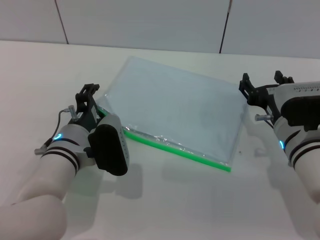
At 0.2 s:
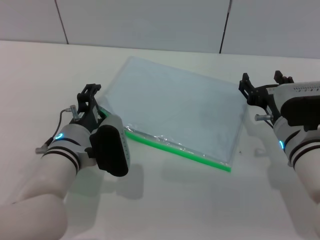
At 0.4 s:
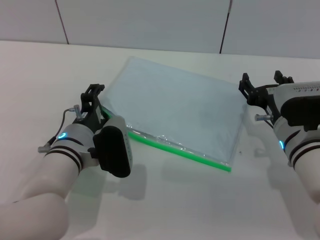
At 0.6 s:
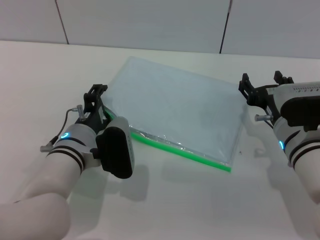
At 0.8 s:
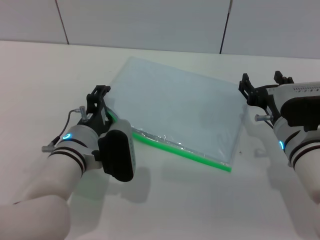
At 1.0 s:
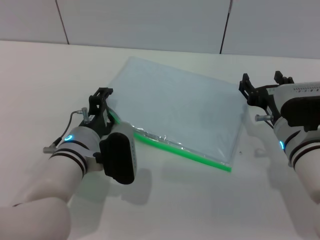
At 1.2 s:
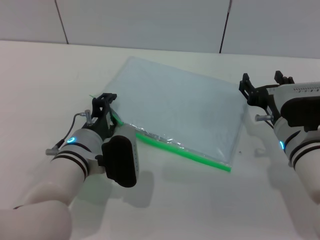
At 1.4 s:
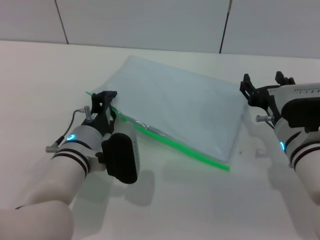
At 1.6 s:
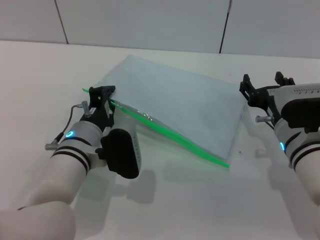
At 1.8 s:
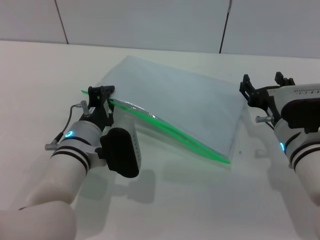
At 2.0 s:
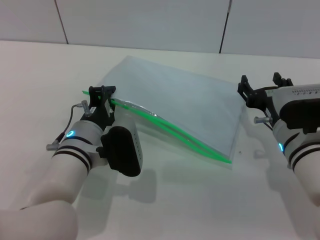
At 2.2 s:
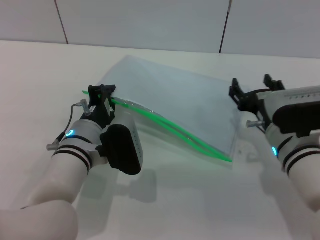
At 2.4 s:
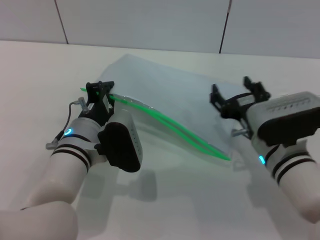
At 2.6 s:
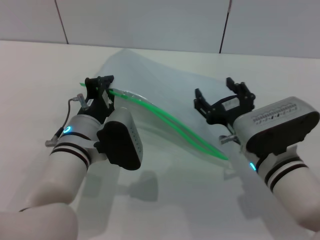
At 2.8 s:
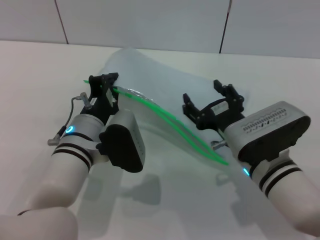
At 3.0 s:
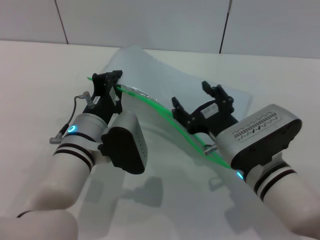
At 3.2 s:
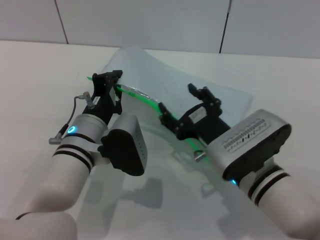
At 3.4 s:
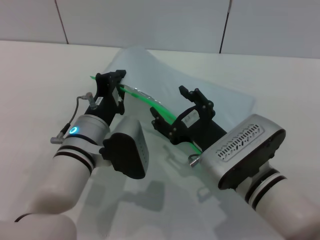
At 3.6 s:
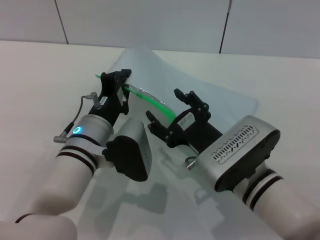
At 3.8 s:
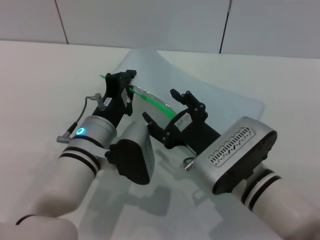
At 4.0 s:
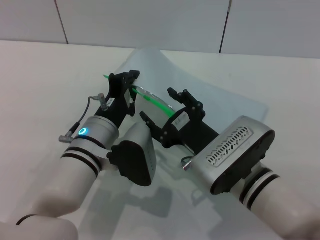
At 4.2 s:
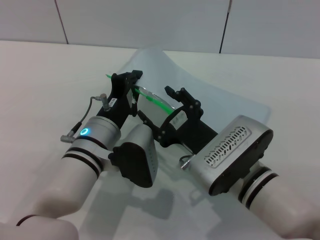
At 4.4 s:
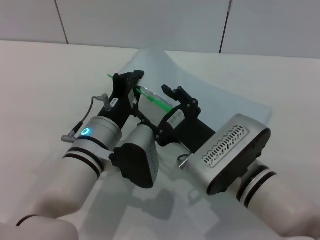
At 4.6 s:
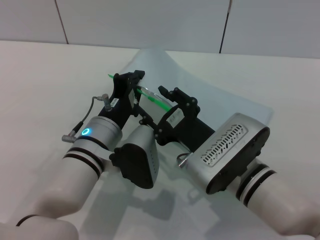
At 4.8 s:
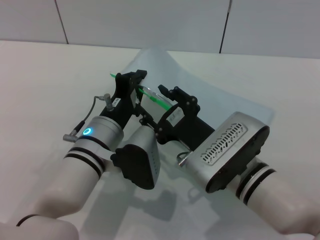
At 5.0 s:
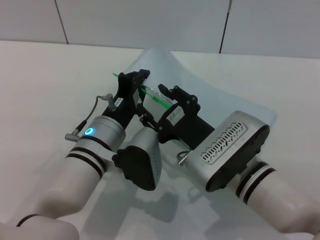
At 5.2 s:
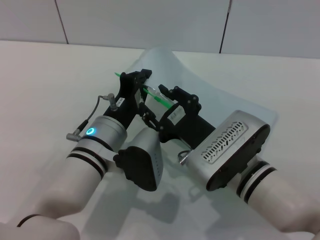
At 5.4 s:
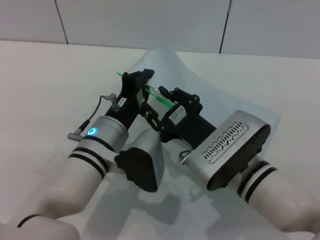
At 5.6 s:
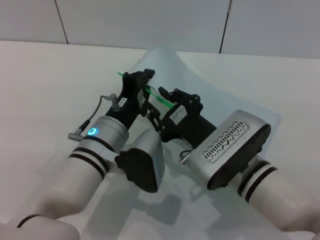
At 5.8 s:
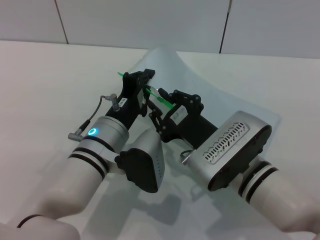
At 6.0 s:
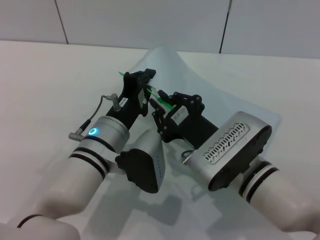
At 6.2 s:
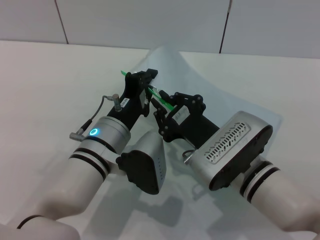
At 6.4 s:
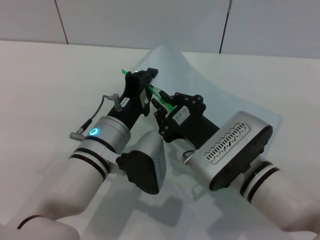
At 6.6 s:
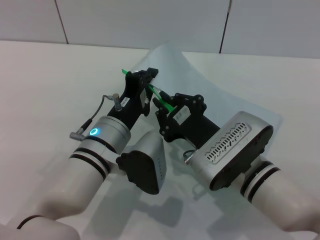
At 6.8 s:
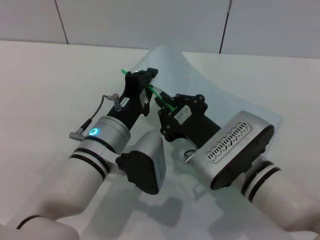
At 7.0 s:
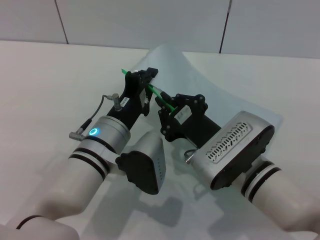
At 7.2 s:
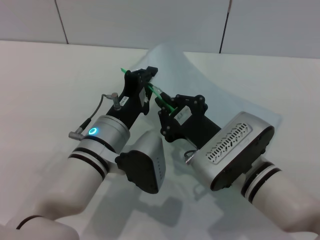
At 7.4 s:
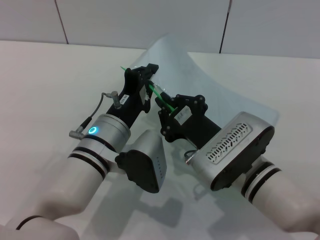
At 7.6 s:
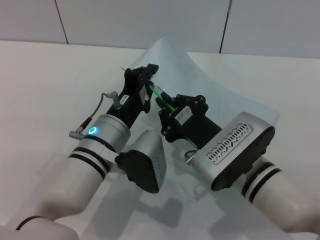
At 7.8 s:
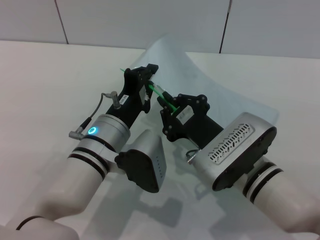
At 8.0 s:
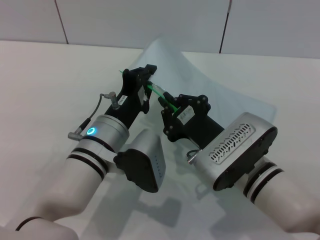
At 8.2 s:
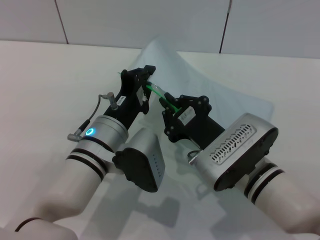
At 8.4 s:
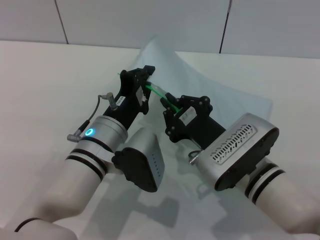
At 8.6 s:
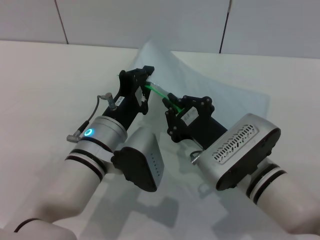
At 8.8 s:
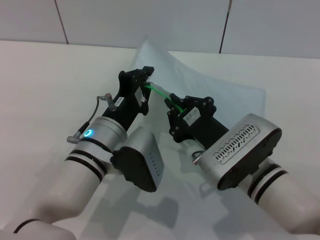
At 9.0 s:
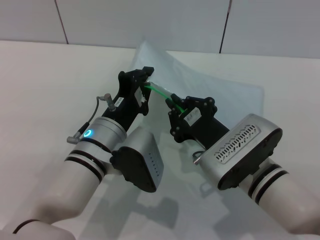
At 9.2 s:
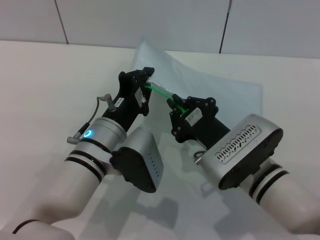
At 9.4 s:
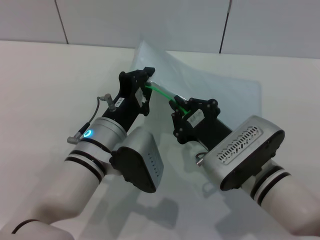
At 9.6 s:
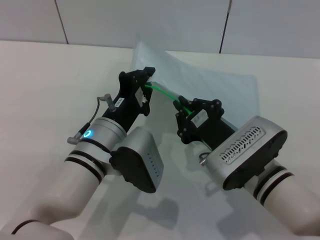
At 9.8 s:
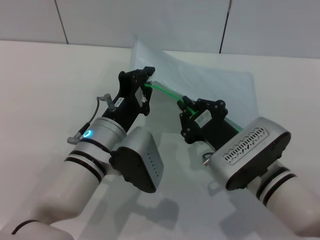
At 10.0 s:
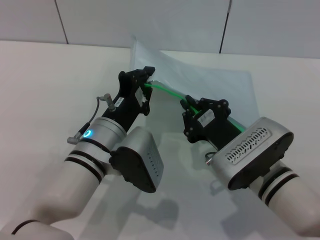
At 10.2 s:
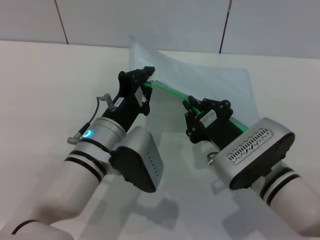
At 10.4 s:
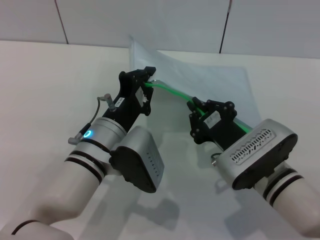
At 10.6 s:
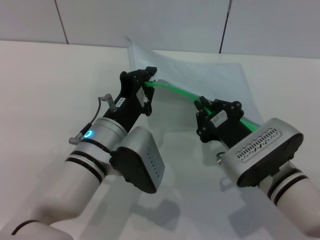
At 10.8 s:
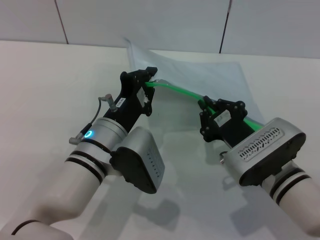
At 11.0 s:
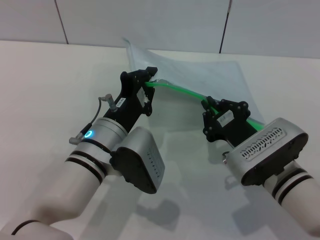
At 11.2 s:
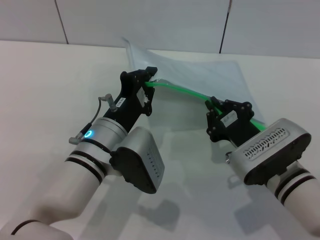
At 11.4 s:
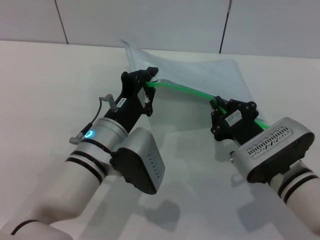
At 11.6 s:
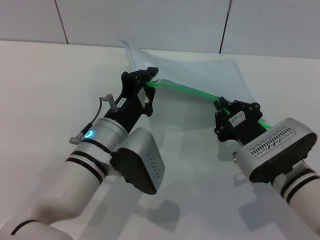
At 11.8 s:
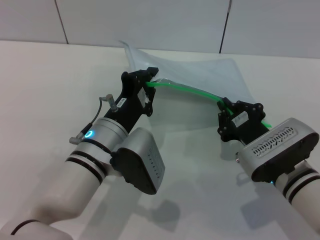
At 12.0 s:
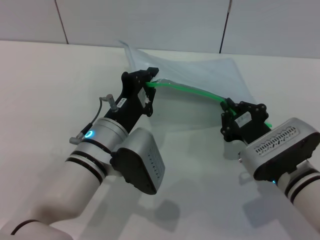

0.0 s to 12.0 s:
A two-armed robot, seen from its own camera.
Step, 0.0 to 2.2 s: Pick up the transparent plastic bag with the left gripper.
0.0 to 1.6 s: The left gripper closes up.
1.6 to 3.0 s: The right gripper shifts about 5 cm to the left.
4.4 to 6.0 s: The right gripper closes up.
6.0 to 7.6 s: Both grippers stay put.
7.6 to 10.4 s: The grippers make only small movements.
10.4 to 12.0 s: The grippers stay close to where they were, moving slightly.

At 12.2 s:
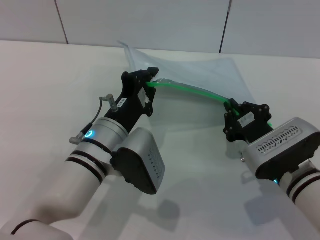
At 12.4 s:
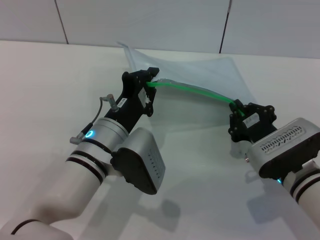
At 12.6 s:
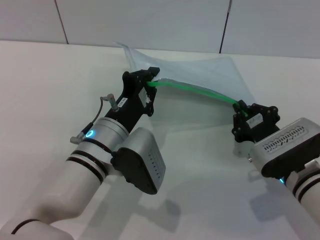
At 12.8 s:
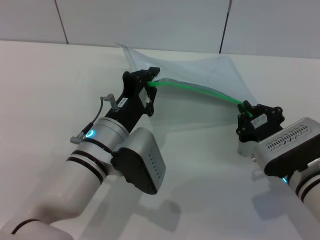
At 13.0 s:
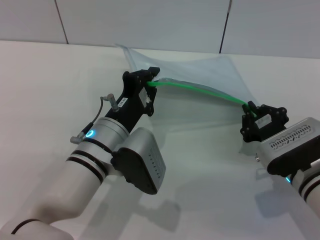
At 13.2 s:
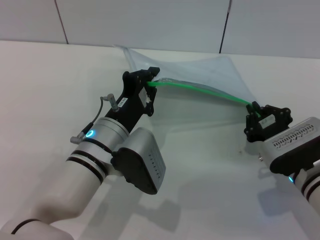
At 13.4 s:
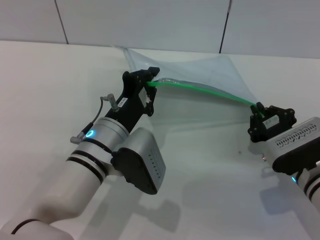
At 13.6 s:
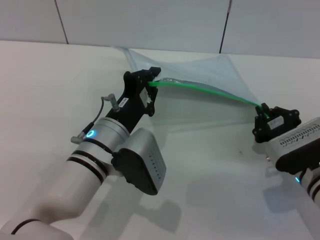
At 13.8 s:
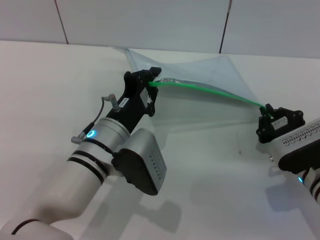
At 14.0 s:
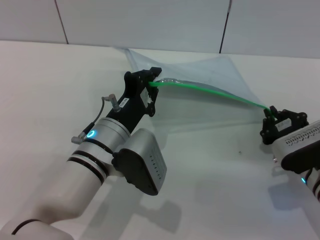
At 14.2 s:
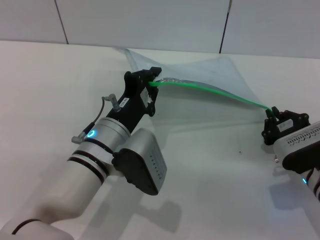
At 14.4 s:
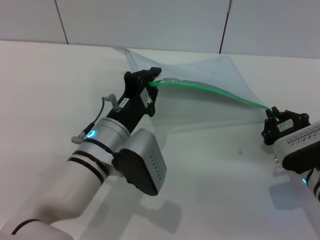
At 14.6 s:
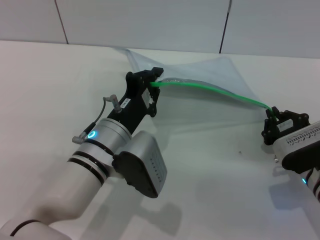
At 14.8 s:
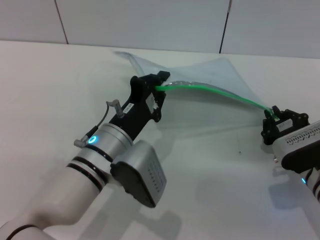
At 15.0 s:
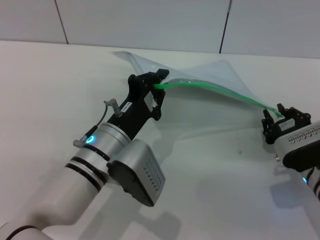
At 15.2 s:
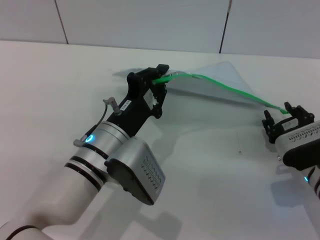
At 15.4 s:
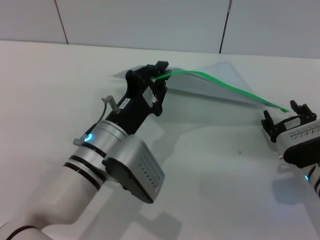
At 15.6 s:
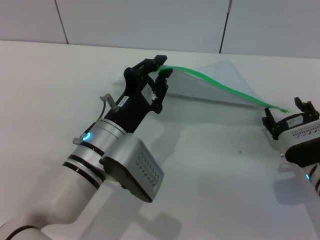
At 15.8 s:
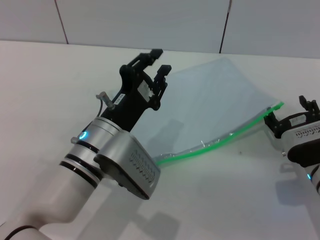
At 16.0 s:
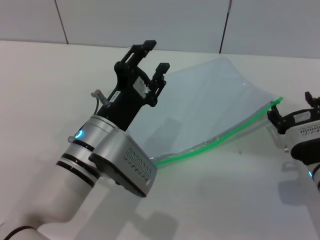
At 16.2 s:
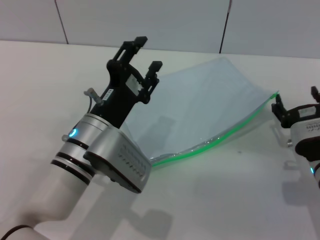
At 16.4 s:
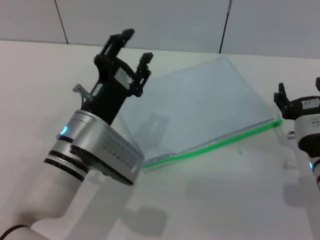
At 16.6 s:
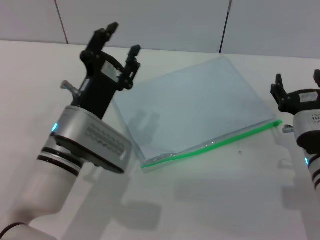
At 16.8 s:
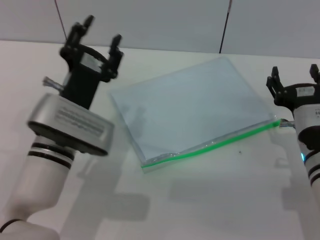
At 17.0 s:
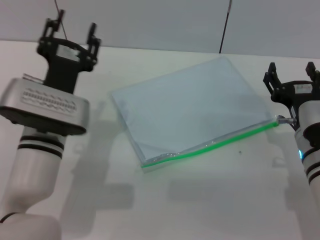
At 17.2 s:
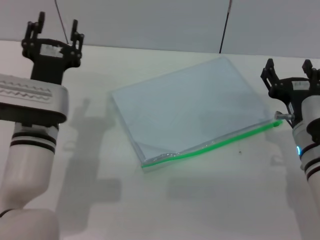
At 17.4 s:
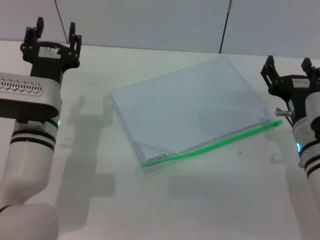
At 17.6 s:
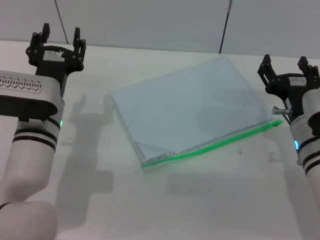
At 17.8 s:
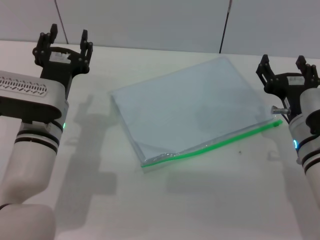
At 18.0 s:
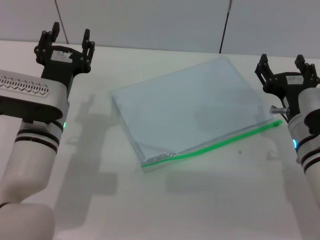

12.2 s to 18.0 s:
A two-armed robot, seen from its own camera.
Step, 12.2 to 15.0 s: Pulling up the zipper on the transparent plastic bag with the right gripper to close it.
Step, 15.2 to 16.2 s: Place the transparent plastic bag.
12.2 to 15.0 s: There are only small adjustments of the grippers.
15.0 to 16.6 s: The right gripper opens up; the left gripper opens.
16.6 to 18.0 s: The left gripper moves some 5 cm.
